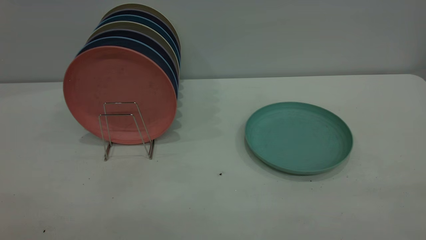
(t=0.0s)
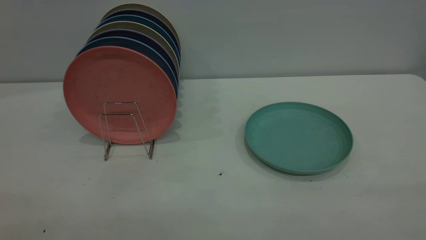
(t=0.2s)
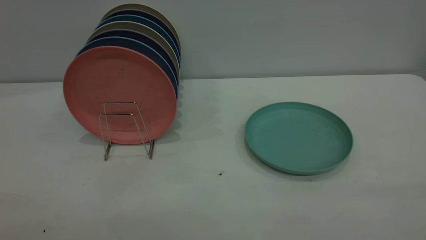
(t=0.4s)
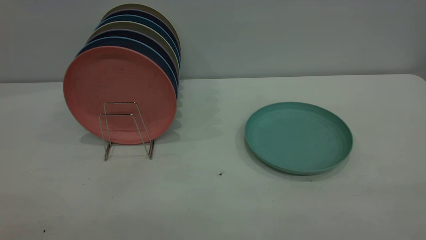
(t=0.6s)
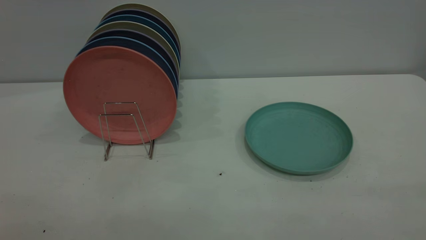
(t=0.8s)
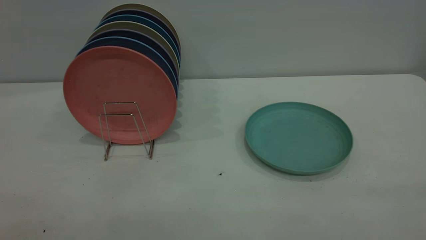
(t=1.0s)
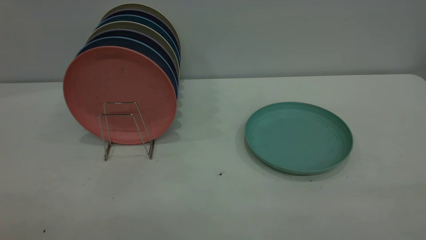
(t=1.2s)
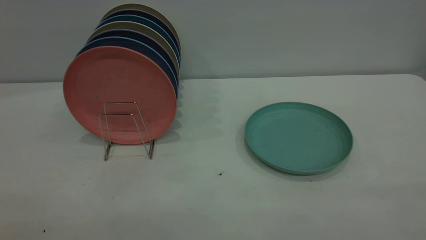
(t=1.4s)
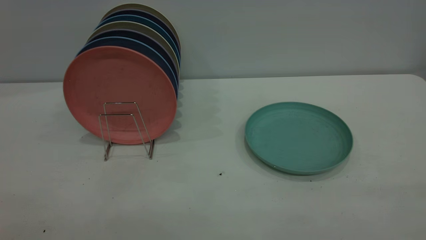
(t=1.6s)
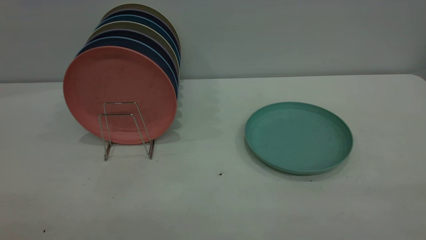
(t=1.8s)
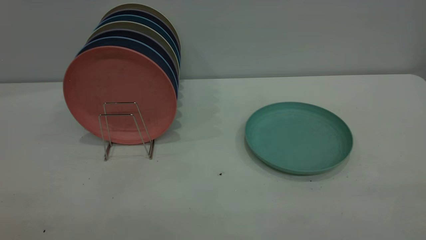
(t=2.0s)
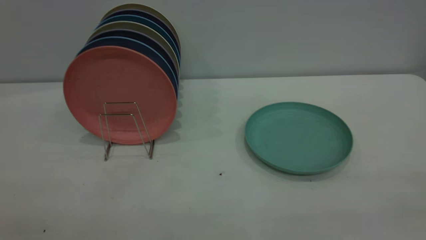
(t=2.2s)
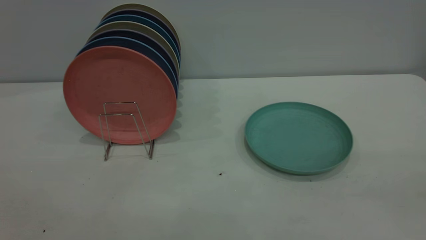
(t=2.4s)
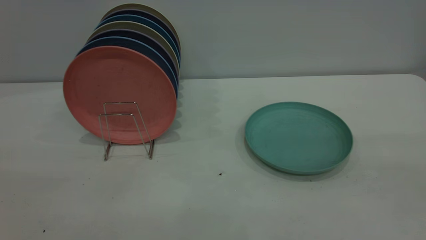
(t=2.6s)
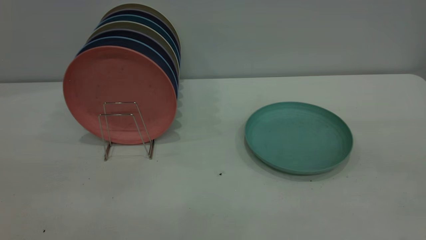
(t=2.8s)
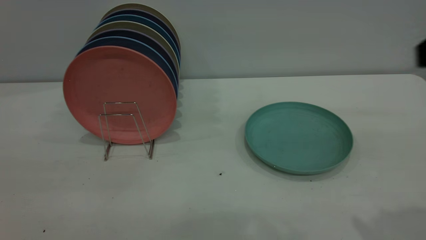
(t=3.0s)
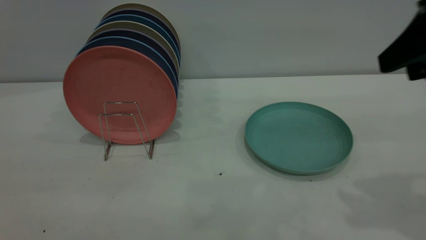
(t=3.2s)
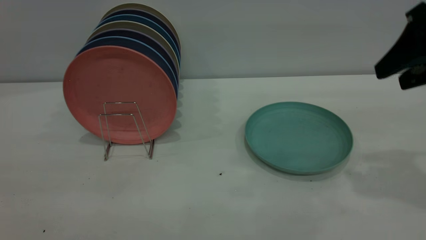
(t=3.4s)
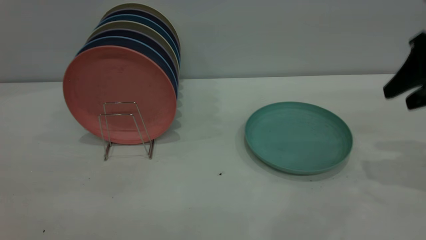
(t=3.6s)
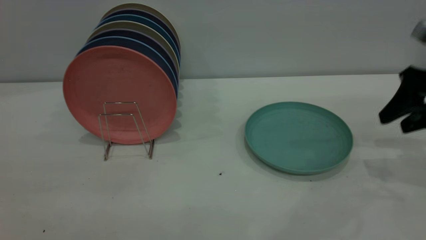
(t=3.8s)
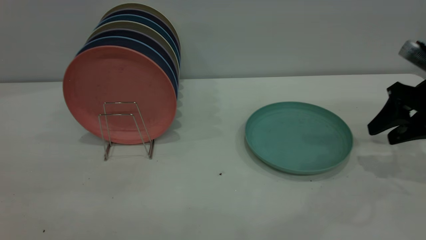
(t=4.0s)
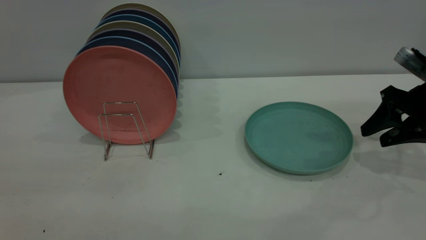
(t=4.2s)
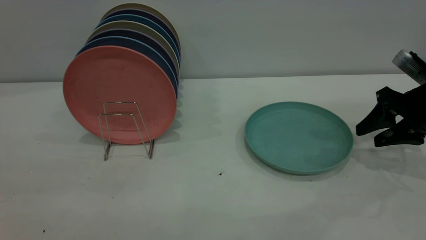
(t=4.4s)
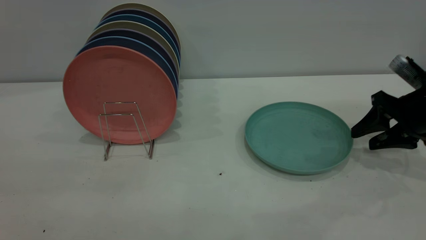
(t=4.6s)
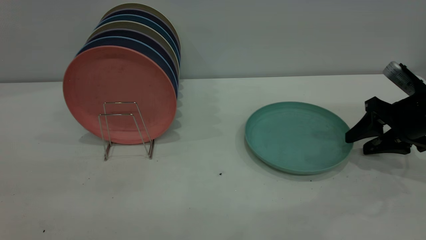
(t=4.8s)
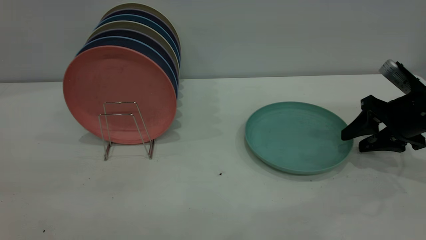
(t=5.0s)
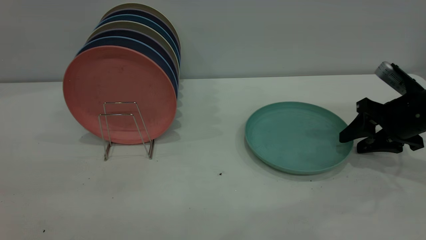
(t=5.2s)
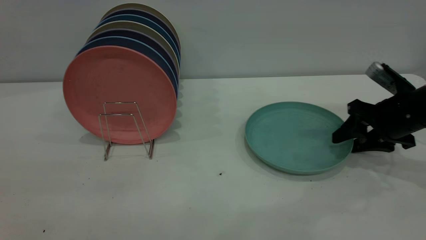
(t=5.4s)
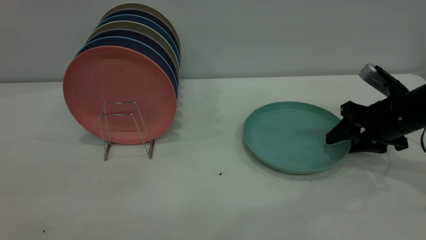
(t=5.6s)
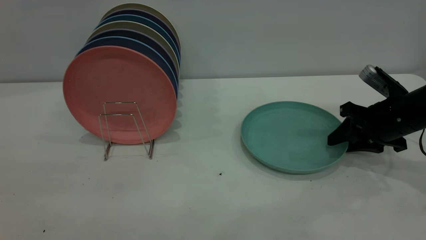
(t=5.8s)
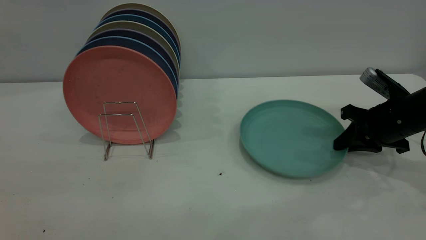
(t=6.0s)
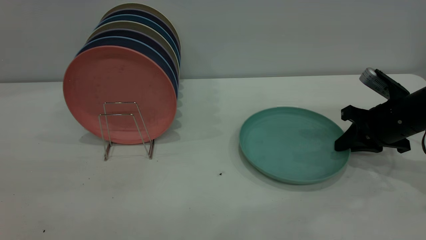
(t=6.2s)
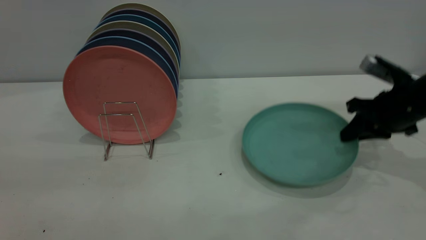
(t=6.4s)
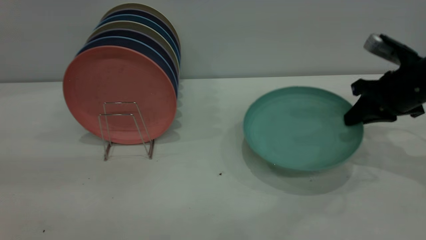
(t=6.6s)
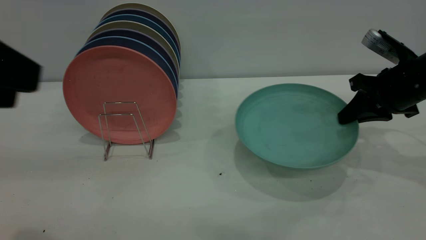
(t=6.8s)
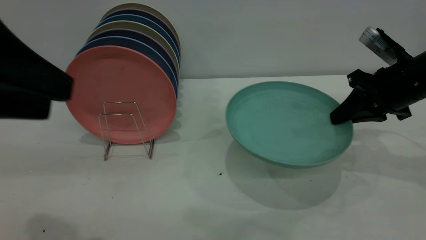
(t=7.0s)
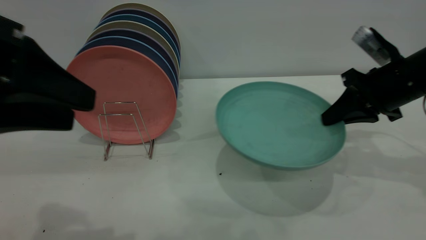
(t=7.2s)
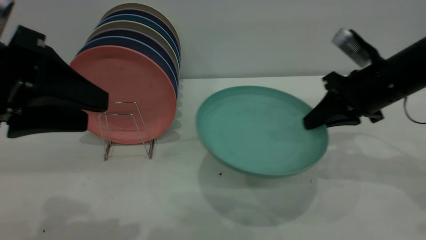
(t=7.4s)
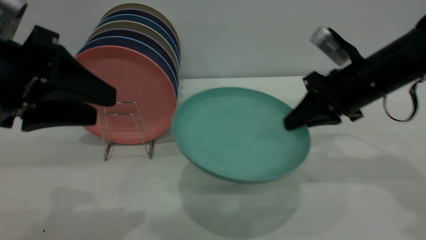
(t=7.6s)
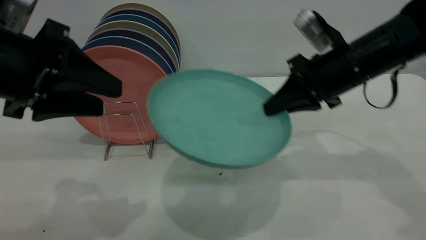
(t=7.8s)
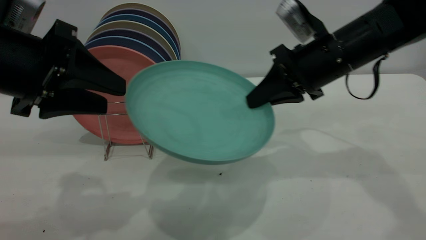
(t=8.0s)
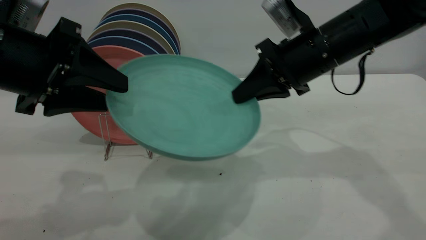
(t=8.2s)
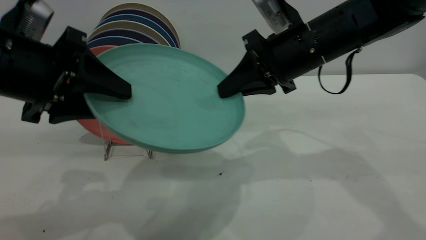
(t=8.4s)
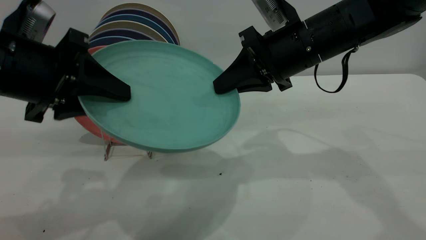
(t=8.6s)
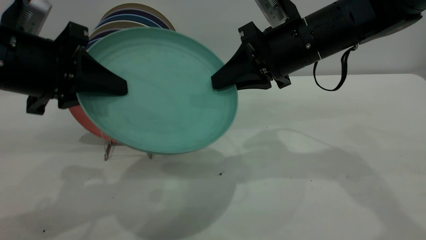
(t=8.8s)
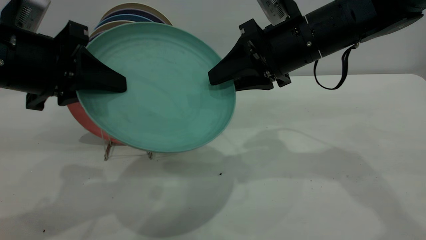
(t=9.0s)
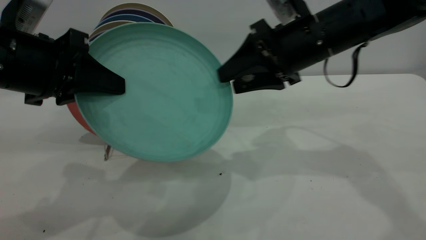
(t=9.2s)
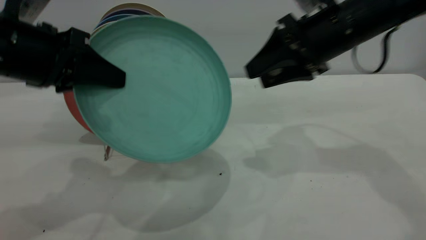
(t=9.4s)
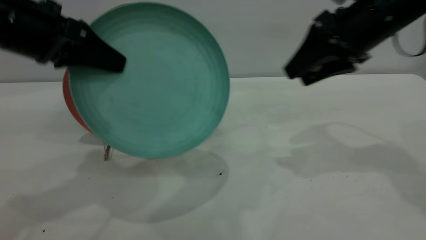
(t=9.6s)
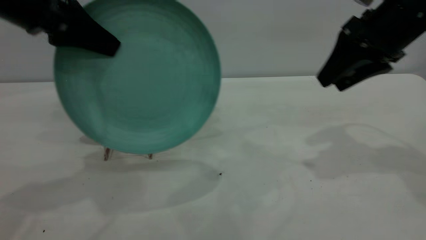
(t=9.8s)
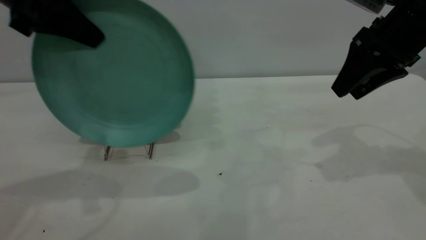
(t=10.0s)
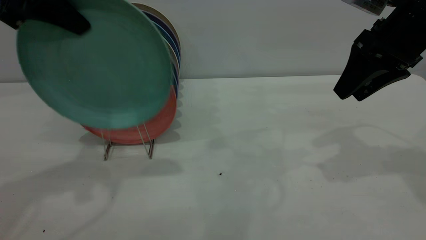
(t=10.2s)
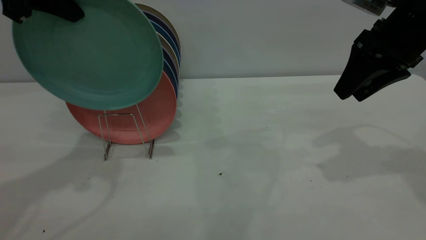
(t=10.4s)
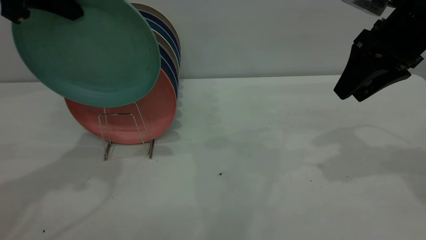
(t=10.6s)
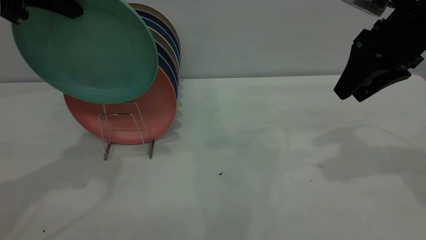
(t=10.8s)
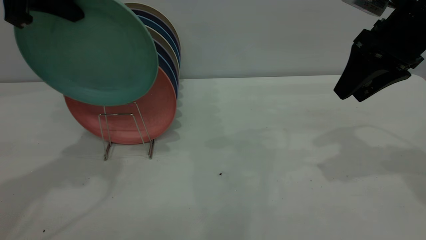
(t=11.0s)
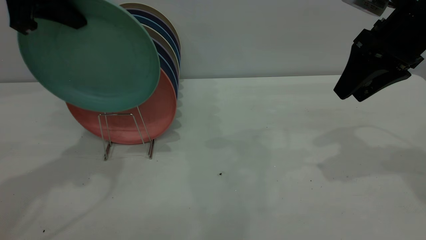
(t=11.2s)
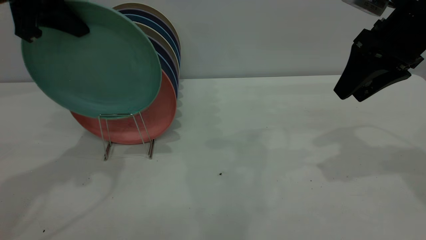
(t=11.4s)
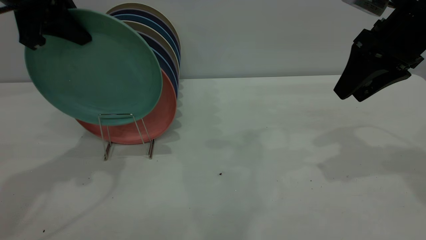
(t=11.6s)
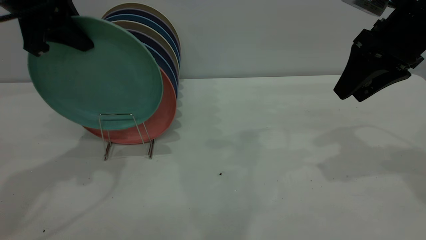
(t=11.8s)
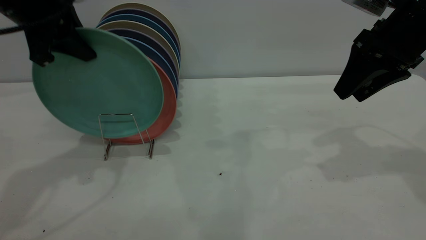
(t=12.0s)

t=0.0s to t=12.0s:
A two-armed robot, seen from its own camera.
Task of the whole recording: the right gripper grasp the green plate, the right gripper pass the green plate to the left gripper, and the left gripper place the green plate on the plate rack.
Step, t=0.0s to t=6.4s: Pick up the plate with the right gripper.
Step, t=6.6s to t=9.2s: Pass the plate from the right gripper to the left gripper.
t=0.0s to t=1.6s: The two grippers keep their place.
t=3.0s to t=4.4s: The right gripper shifts roughly 25 cm downward and forward.
t=4.4s to t=6.0s: The right gripper shifts by some 5 cm, and closes.
t=6.0s to t=7.6s: The left gripper goes roughly 20 cm forward and downward. Meanwhile the right gripper goes roughly 10 cm to the left and upward.
t=7.6s to t=9.0s: The left gripper closes up. The right gripper travels to the left and upward by some 10 cm, and opens up.
t=9.0s to t=10.4s: The left gripper is displaced upward and forward by roughly 15 cm; the right gripper travels to the right by about 15 cm.
t=10.4s to t=12.0s: The left gripper shifts about 5 cm downward.

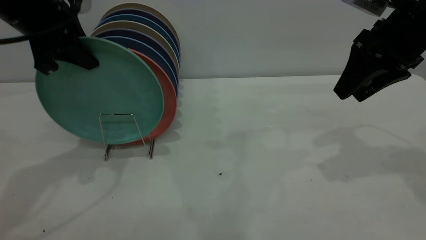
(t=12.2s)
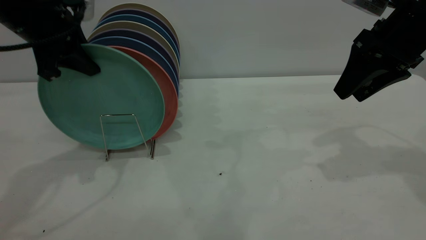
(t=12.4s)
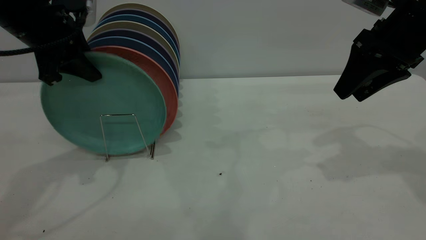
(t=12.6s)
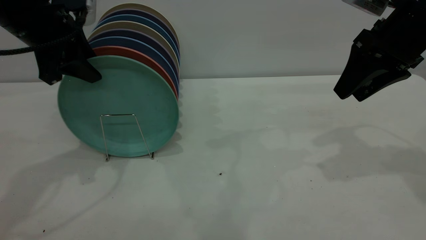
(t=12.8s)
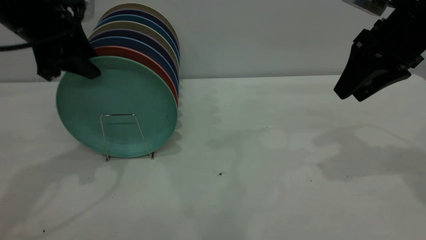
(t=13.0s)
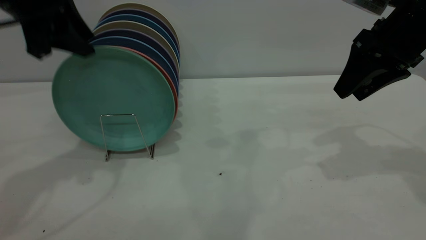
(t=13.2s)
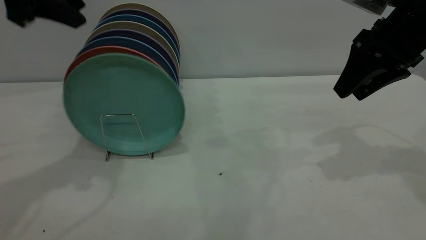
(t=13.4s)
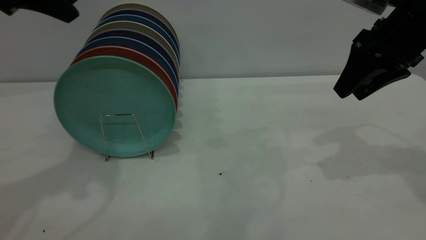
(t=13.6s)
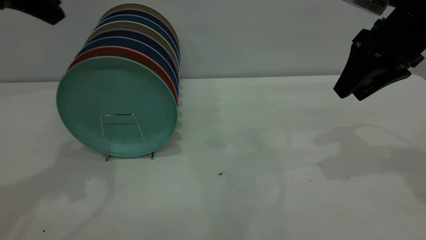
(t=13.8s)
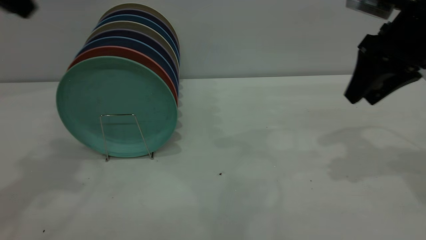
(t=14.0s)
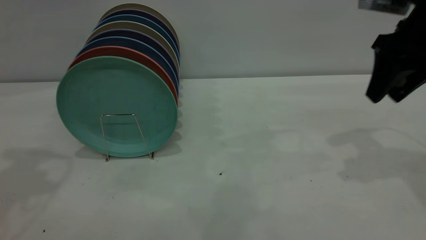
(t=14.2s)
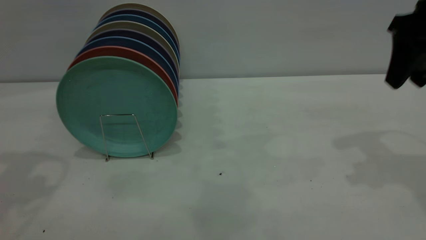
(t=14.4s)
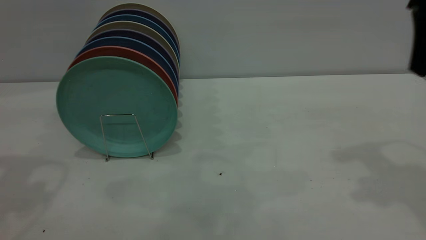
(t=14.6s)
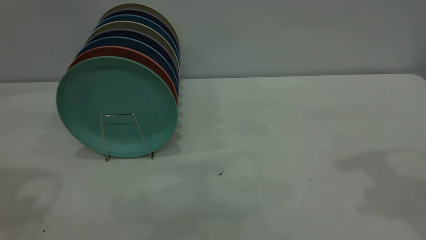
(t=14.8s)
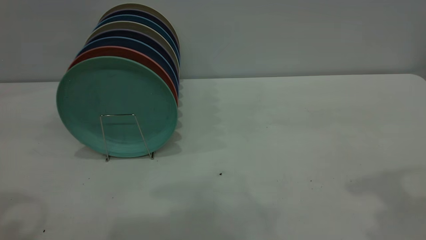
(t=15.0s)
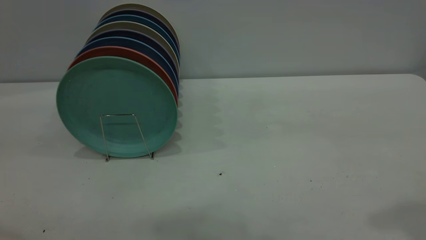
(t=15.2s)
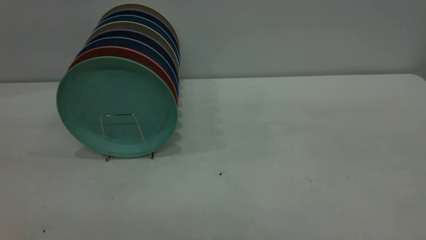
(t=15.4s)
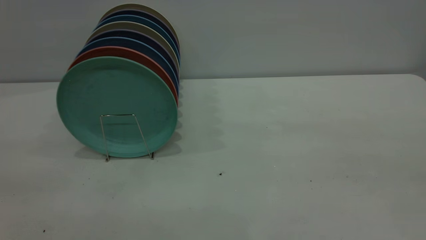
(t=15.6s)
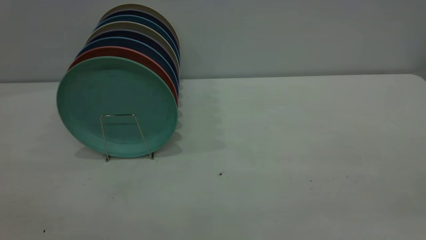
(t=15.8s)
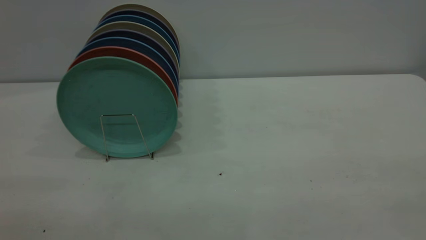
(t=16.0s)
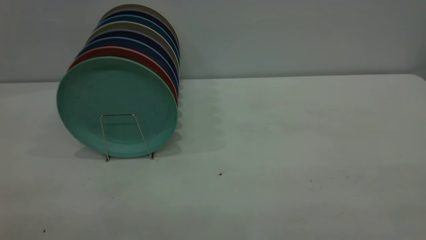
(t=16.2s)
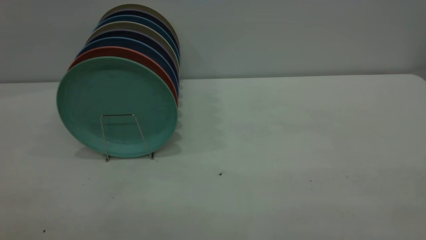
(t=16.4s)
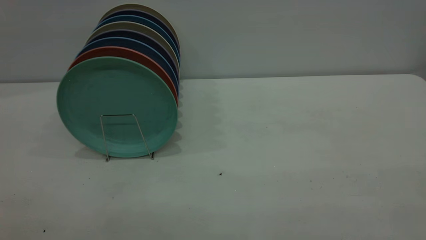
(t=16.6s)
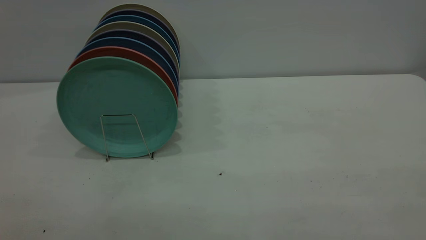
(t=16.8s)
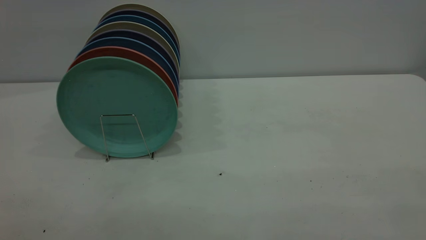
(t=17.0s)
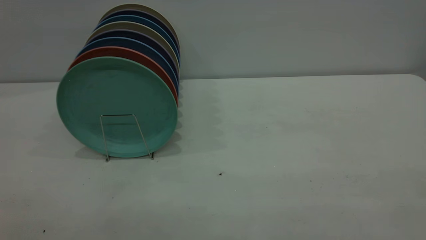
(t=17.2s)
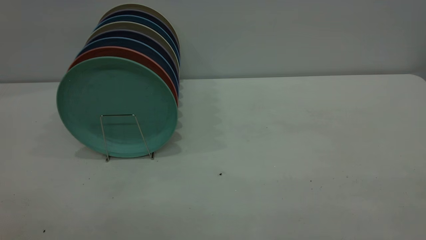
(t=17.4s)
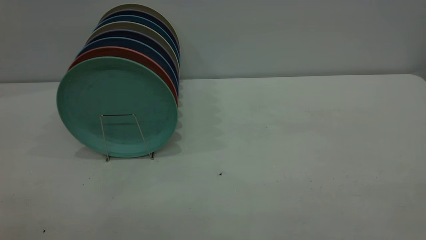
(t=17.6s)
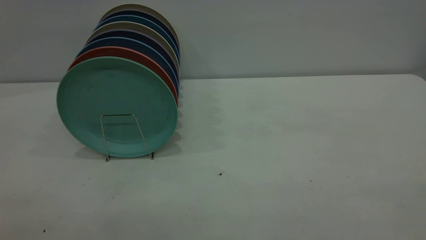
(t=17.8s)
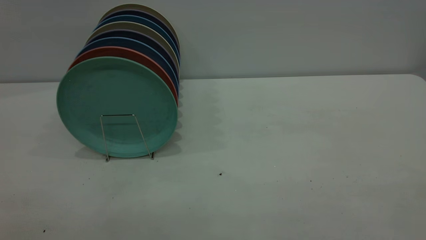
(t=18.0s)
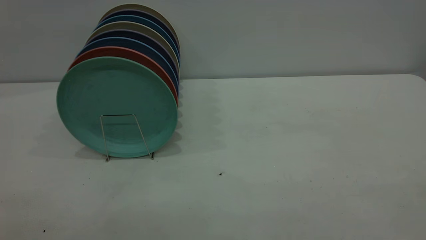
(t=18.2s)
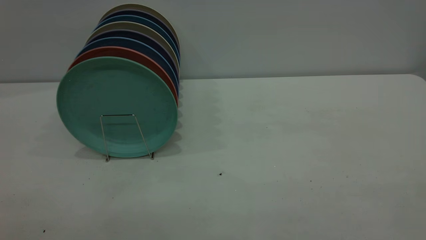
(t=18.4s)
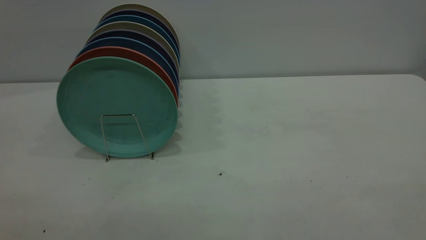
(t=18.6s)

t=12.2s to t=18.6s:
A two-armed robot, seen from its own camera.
Task of the whole recording: the right gripper grasp the green plate, the right gripper pass the green plate to the left gripper, and the left gripper place the green plate on the plate rack.
t=12.2s to t=13.8s: The left gripper heads upward, covering roughly 10 cm, and opens up.
t=13.8s to t=15.4s: The right gripper is displaced backward and upward by some 30 cm. The left gripper travels backward by some 25 cm, and opens up.
